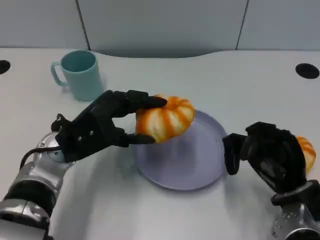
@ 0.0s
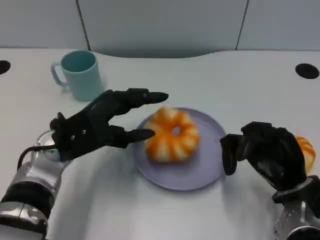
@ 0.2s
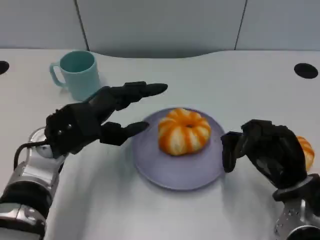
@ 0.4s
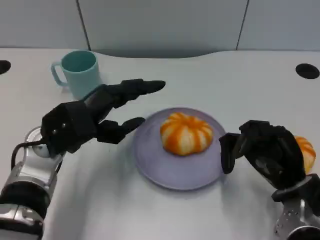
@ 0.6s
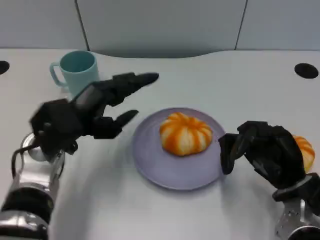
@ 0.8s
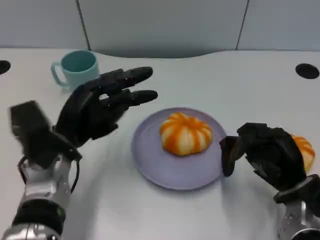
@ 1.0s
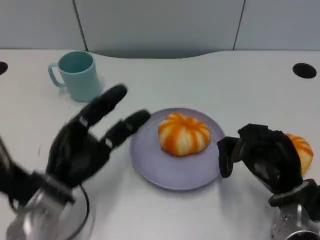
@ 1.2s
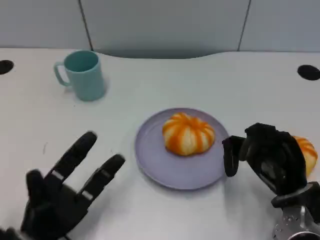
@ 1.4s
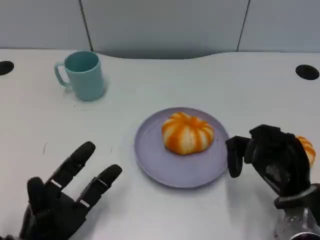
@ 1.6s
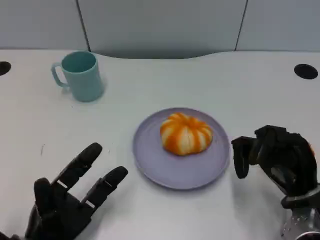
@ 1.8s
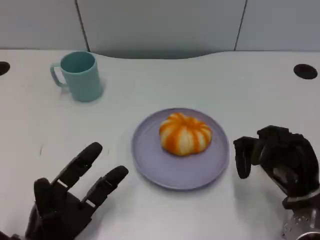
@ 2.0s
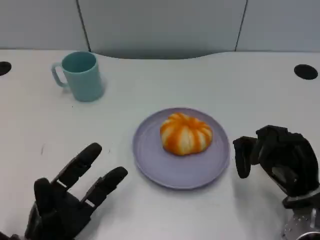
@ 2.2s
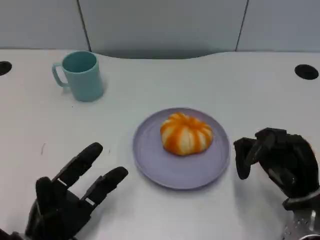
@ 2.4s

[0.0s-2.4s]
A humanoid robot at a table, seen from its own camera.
Task of the whole recording: Grasp the bread from the table and place it into the plate.
0.0s to 1.2s: The left hand moves backward and downward, approximately 10 cm.
1.2s to 2.4s: The left hand shifts approximately 5 cm backward.

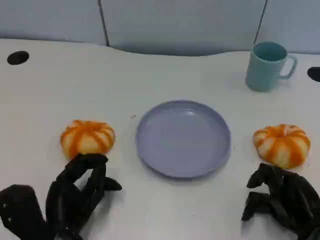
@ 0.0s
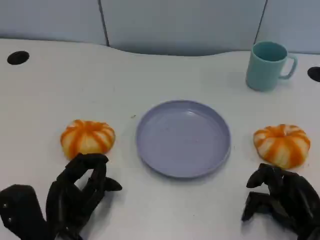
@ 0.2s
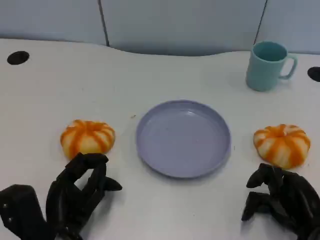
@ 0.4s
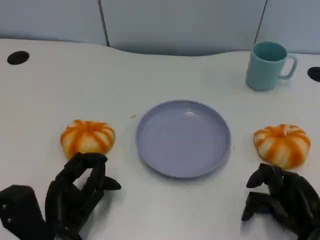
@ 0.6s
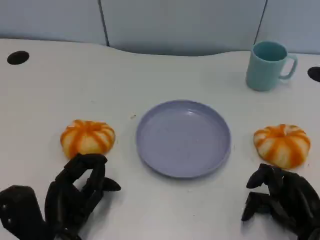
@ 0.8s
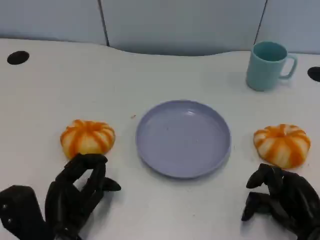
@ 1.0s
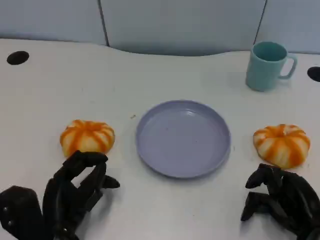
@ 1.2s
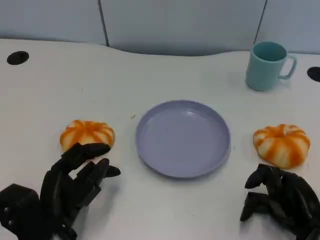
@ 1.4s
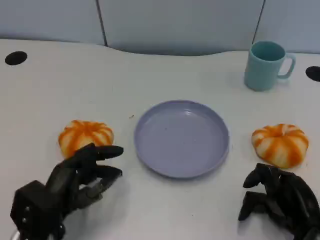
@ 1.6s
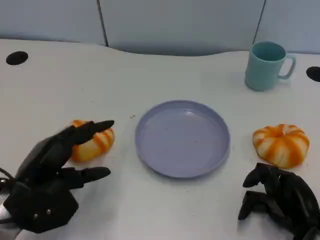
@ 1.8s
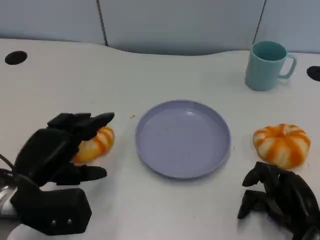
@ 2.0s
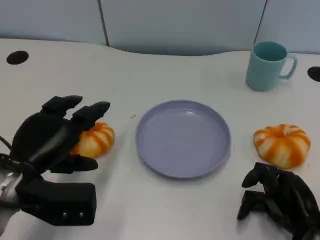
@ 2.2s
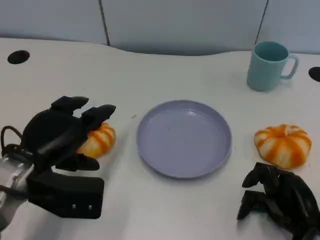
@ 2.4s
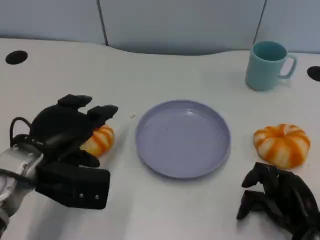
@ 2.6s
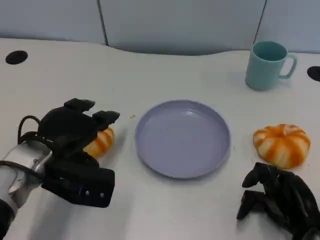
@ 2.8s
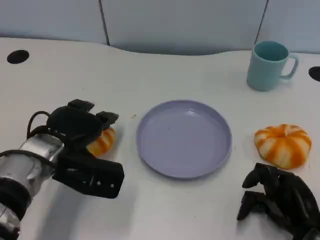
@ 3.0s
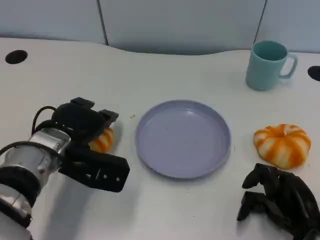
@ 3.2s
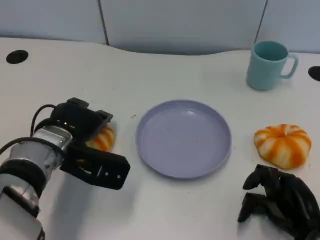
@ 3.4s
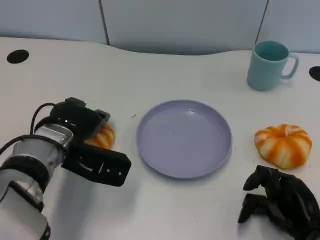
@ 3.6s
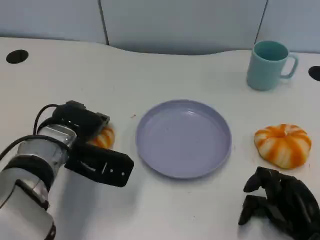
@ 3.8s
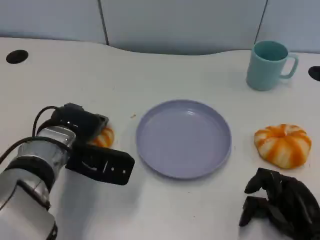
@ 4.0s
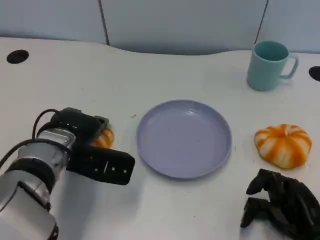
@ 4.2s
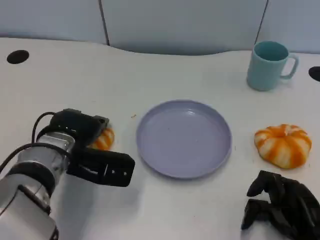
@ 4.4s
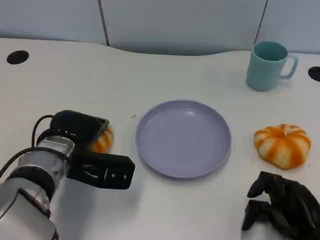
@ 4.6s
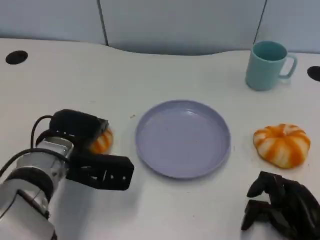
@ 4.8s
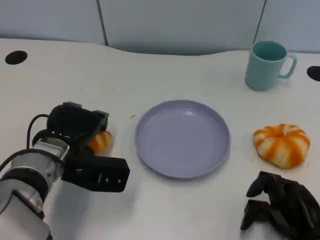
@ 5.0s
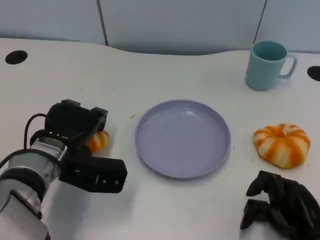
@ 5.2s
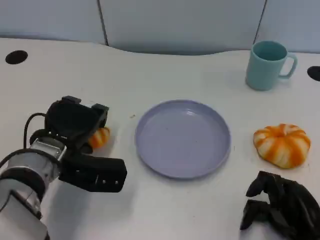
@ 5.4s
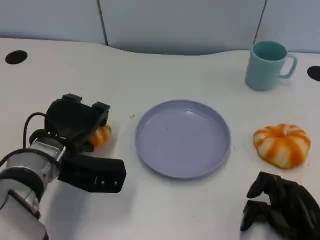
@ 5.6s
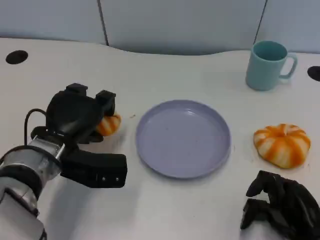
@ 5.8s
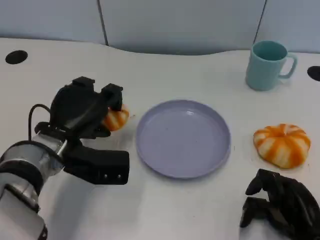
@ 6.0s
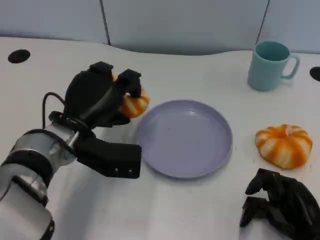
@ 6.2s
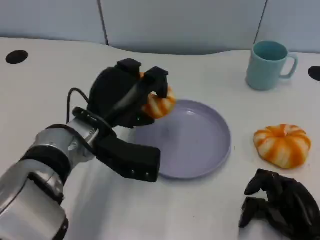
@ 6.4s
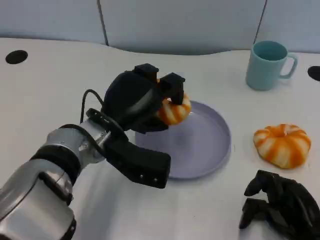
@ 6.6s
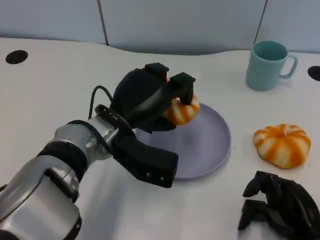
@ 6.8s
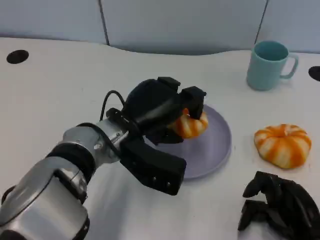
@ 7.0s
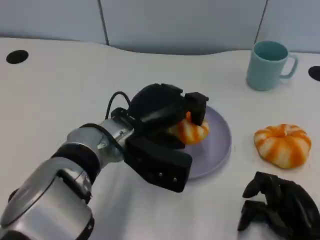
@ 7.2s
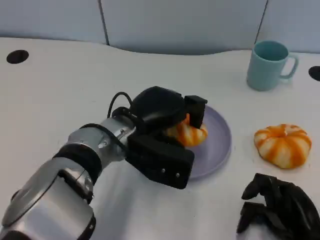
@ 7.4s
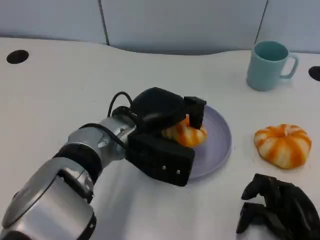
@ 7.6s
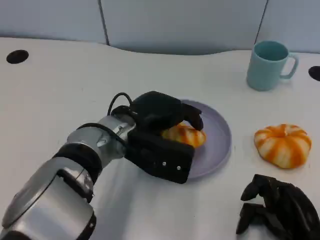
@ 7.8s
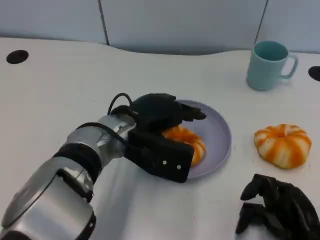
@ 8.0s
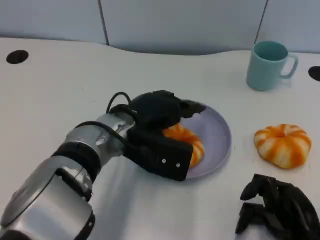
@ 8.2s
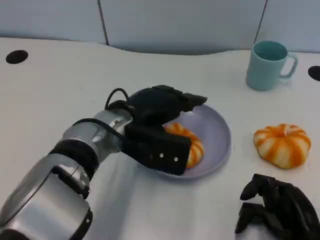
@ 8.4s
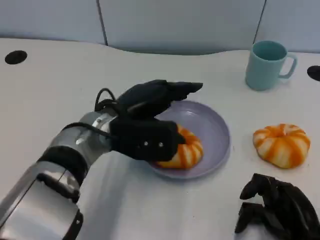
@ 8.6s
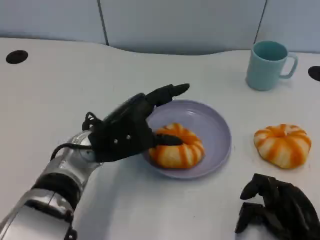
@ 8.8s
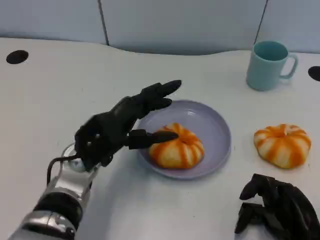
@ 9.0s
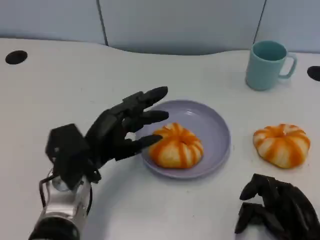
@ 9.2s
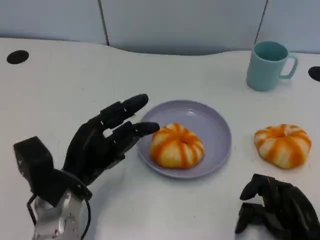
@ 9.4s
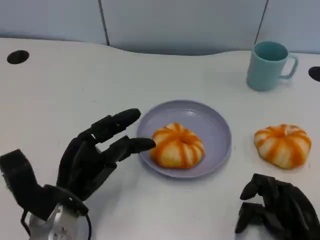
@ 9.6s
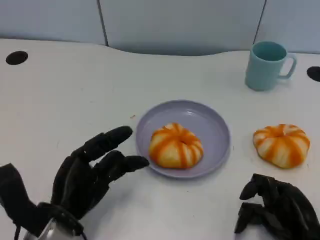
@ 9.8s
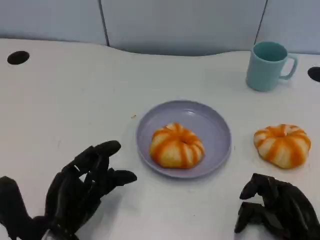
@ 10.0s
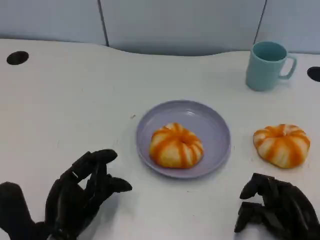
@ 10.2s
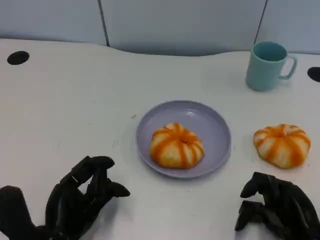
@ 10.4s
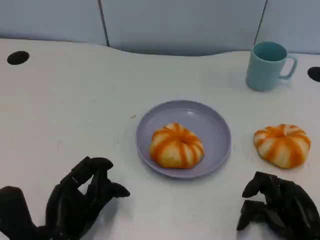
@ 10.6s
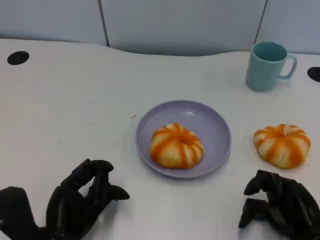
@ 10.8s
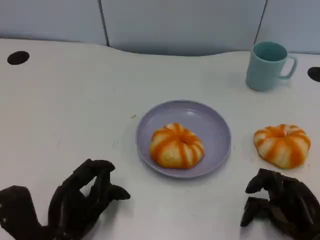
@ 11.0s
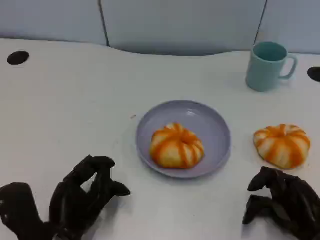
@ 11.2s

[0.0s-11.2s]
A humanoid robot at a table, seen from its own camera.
Task of the whole recording: Grasp the bread from the table and place it into the plate.
1.6s to 3.2s: The left hand travels forward and upward by roughly 10 cm.
3.2s to 4.8s: The hands stay close to where they were, moving slightly.
4.8s to 6.4s: The left hand goes about 5 cm to the right.
8.0s to 9.6s: The left hand goes some 15 cm to the left, backward and downward.

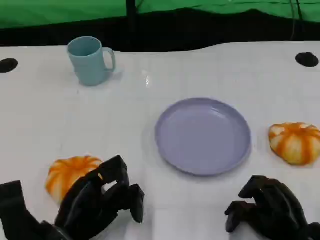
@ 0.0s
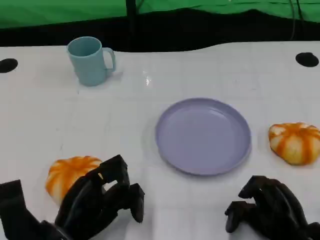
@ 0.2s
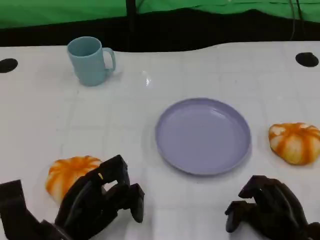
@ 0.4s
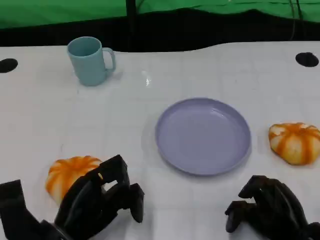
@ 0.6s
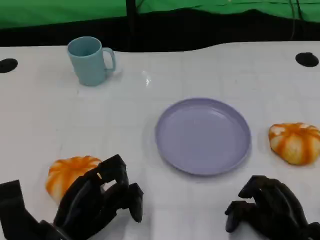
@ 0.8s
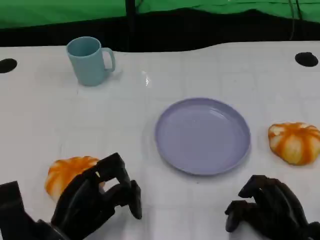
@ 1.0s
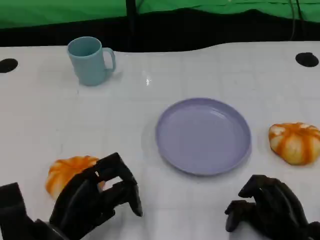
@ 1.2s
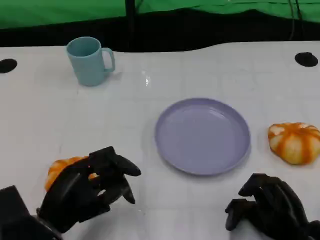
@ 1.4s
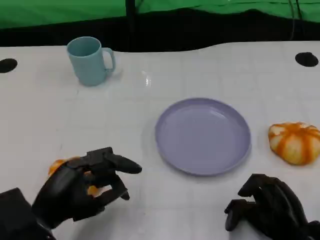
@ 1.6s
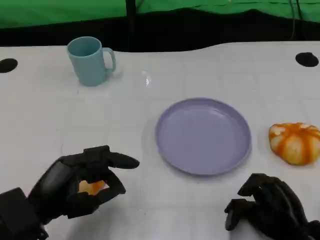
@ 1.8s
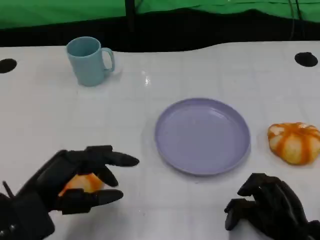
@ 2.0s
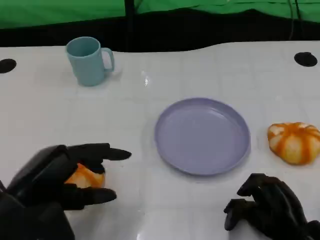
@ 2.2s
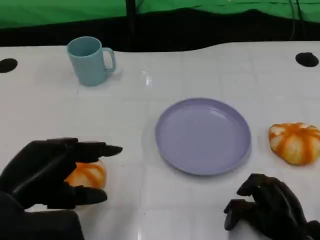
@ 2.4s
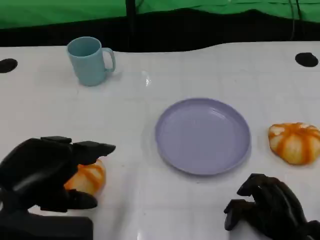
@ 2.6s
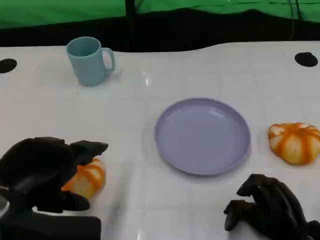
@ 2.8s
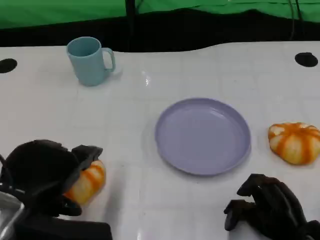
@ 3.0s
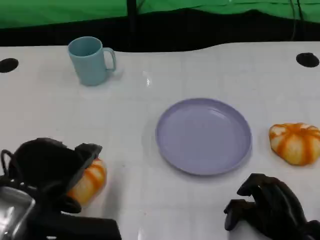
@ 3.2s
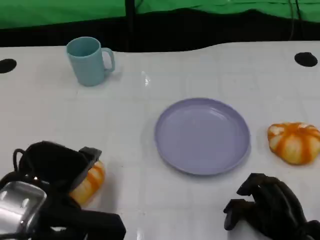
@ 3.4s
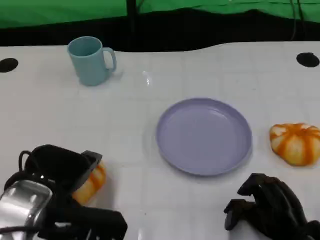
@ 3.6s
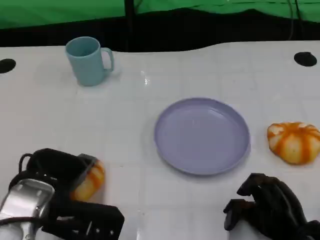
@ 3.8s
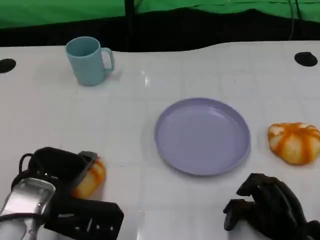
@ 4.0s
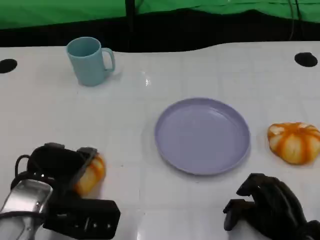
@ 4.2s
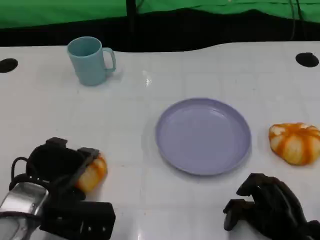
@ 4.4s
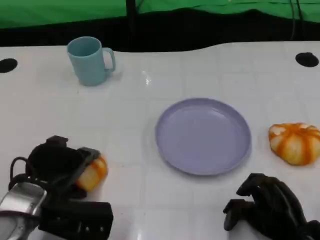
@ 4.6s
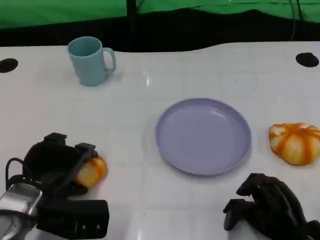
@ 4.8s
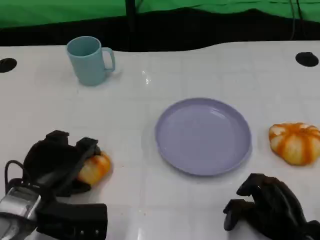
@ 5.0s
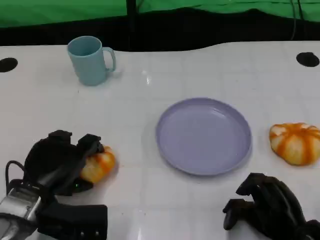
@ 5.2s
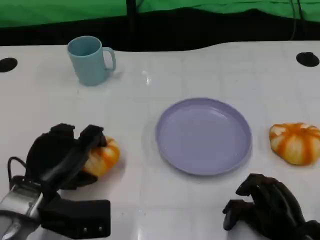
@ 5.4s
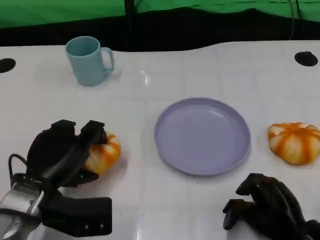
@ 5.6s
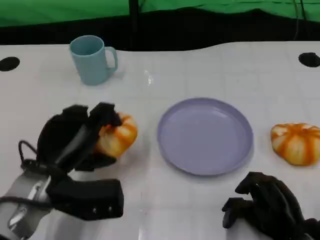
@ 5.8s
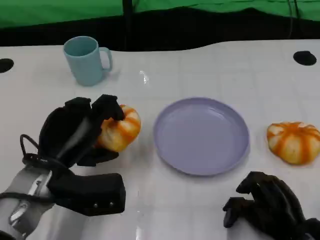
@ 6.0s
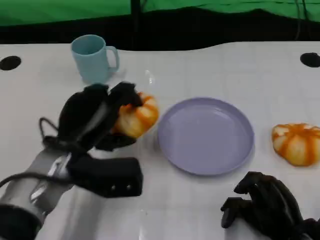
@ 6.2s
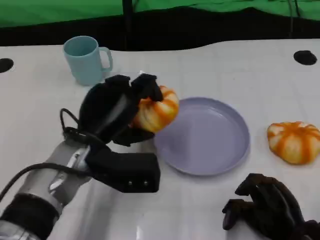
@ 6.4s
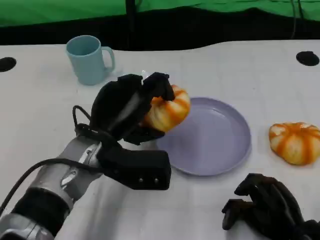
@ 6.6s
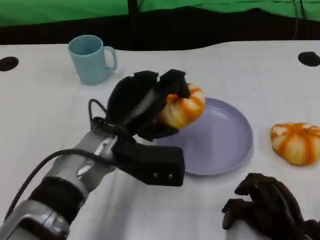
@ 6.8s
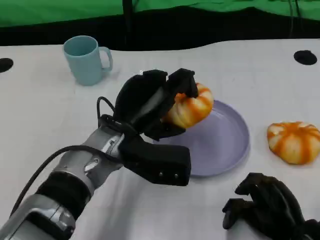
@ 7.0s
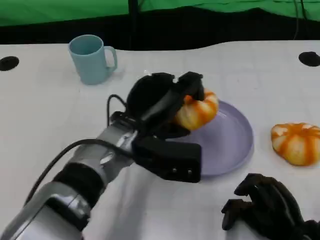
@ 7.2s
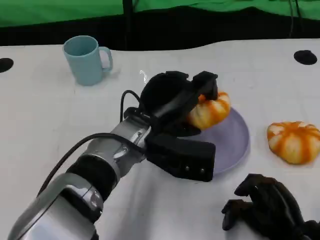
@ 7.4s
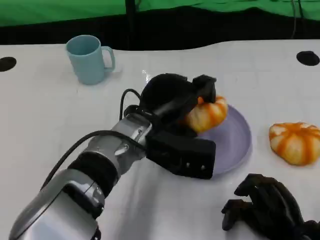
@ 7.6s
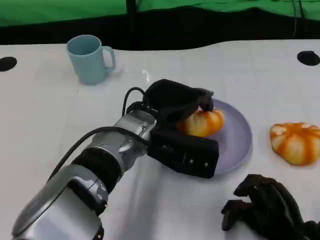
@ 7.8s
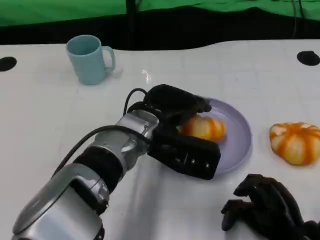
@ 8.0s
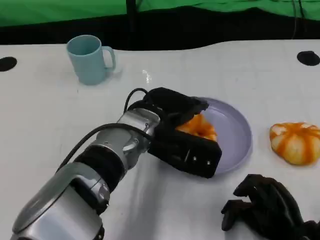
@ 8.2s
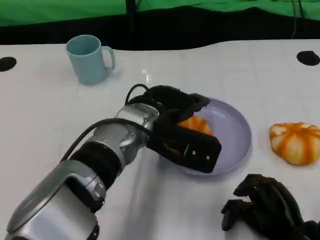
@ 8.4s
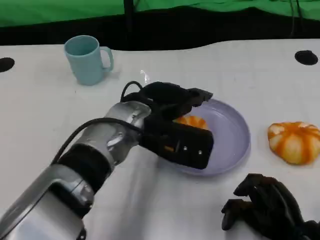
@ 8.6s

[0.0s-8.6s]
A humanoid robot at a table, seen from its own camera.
Task of the whole recording: Grasp the bread from the table and place it into the plate.
1.4s to 2.8s: The left hand goes roughly 10 cm upward.
2.8s to 4.4s: The left hand heads downward and forward, covering approximately 10 cm.
5.8s to 7.2s: The left hand shifts about 15 cm to the right.
